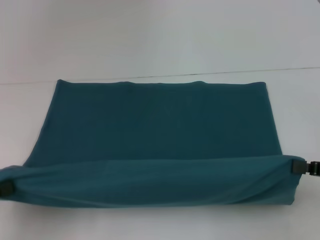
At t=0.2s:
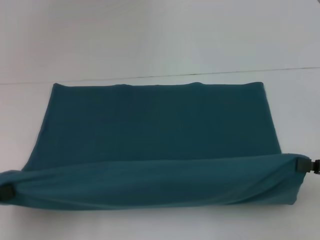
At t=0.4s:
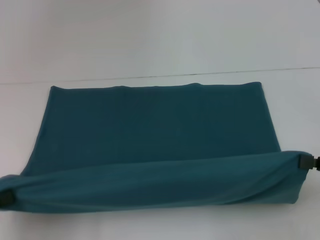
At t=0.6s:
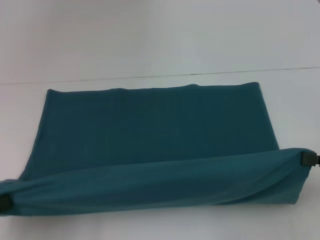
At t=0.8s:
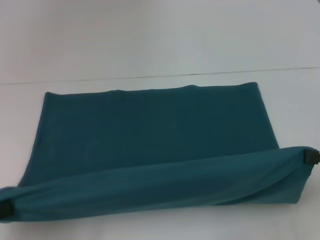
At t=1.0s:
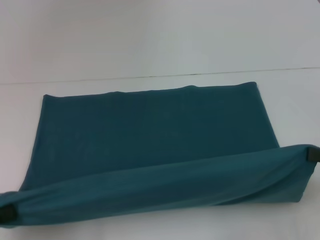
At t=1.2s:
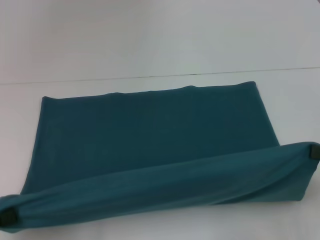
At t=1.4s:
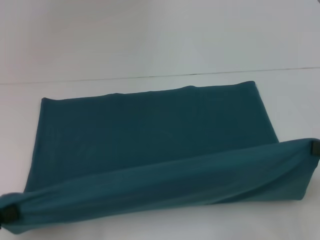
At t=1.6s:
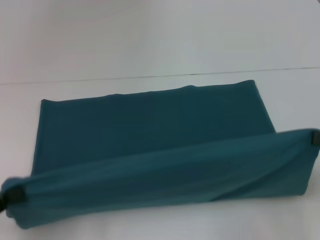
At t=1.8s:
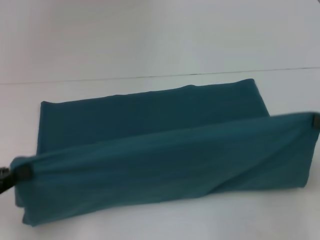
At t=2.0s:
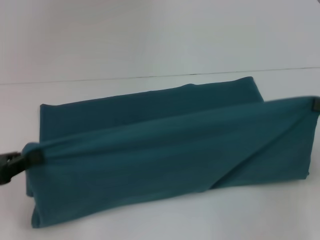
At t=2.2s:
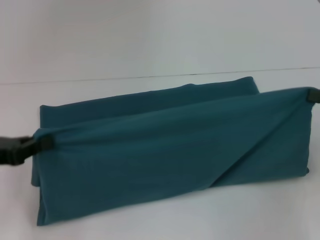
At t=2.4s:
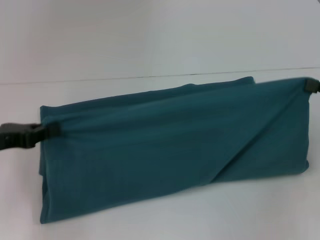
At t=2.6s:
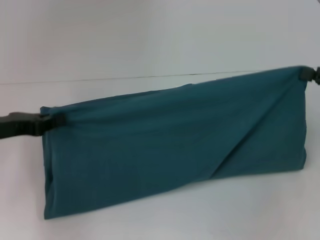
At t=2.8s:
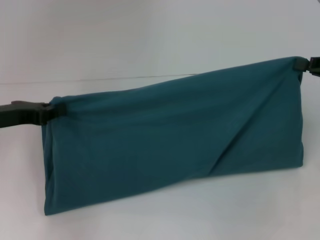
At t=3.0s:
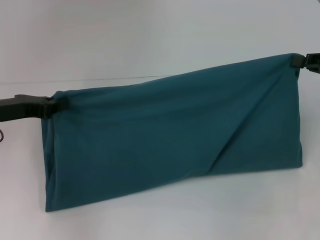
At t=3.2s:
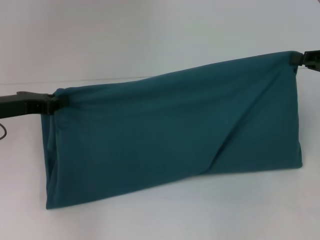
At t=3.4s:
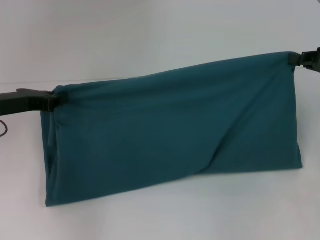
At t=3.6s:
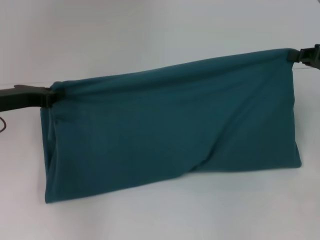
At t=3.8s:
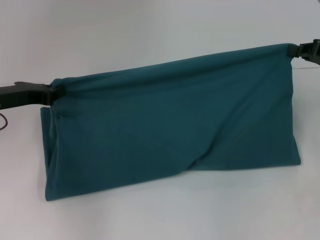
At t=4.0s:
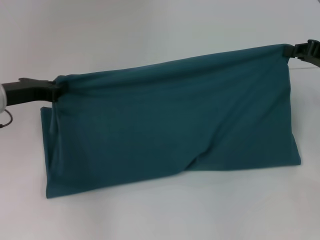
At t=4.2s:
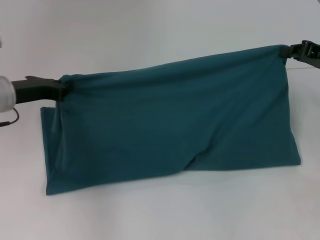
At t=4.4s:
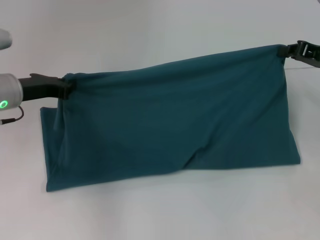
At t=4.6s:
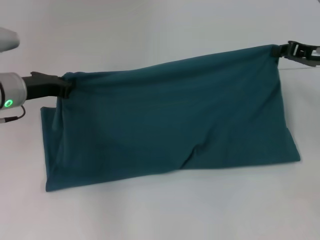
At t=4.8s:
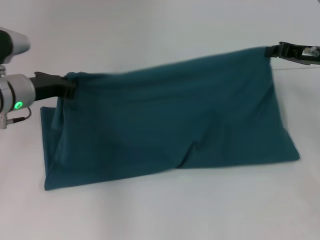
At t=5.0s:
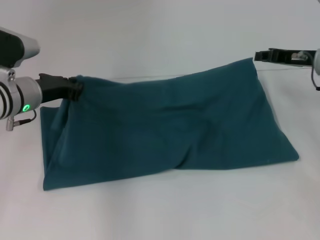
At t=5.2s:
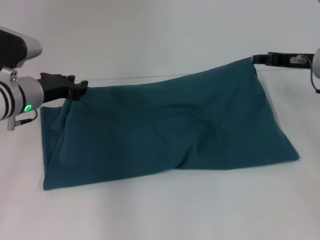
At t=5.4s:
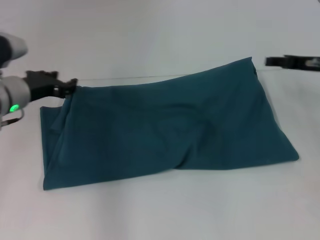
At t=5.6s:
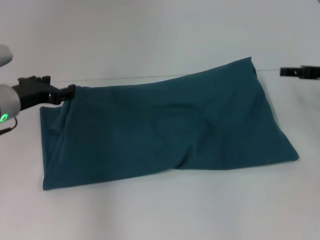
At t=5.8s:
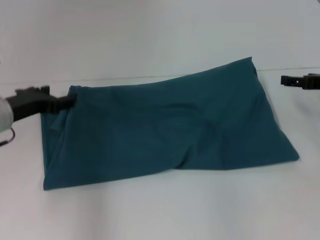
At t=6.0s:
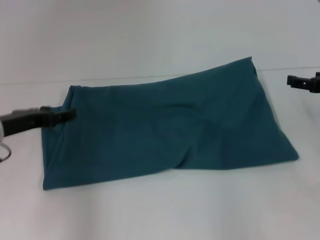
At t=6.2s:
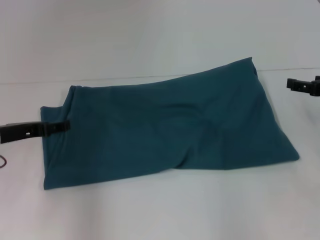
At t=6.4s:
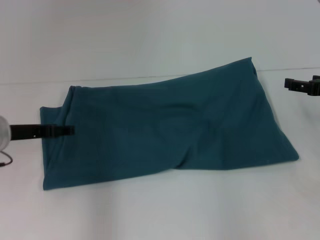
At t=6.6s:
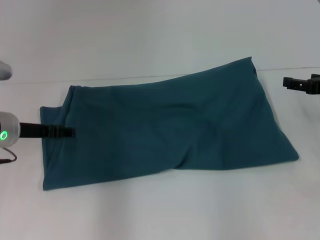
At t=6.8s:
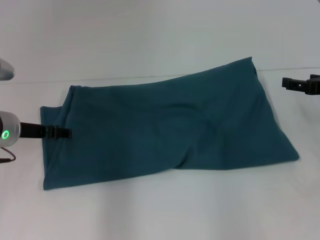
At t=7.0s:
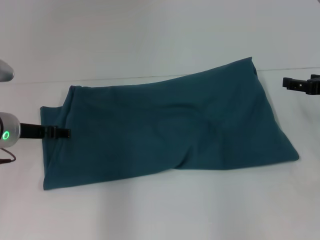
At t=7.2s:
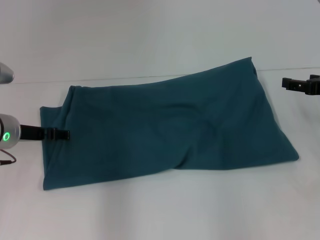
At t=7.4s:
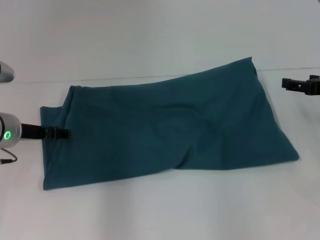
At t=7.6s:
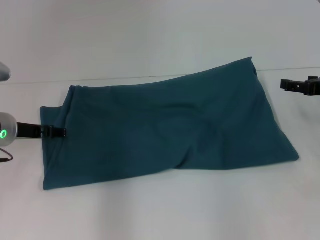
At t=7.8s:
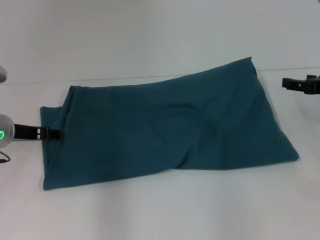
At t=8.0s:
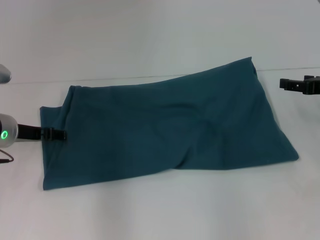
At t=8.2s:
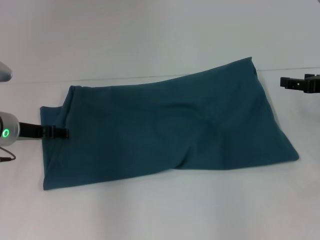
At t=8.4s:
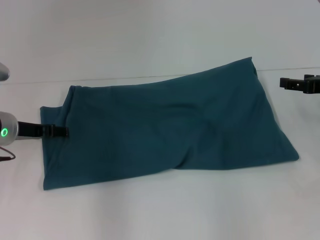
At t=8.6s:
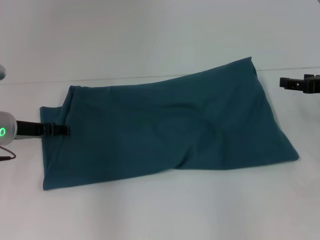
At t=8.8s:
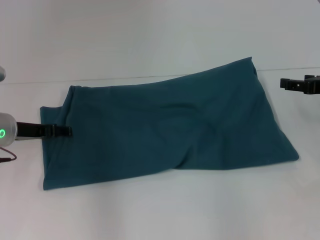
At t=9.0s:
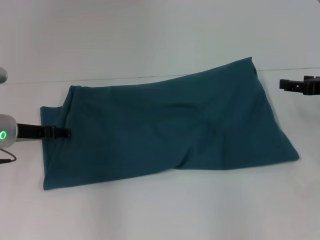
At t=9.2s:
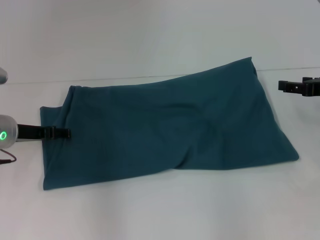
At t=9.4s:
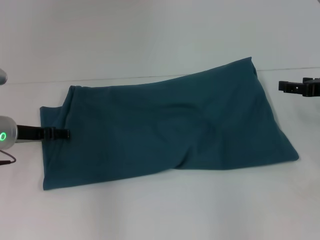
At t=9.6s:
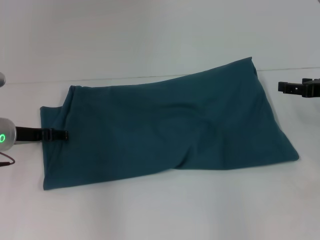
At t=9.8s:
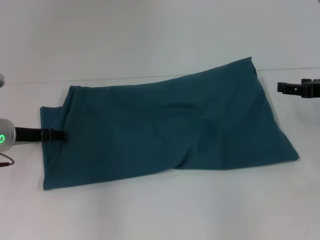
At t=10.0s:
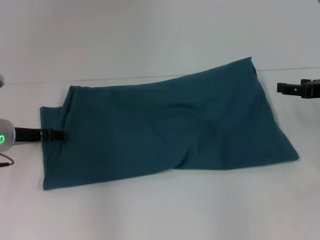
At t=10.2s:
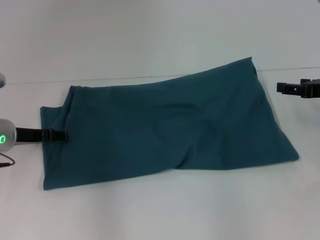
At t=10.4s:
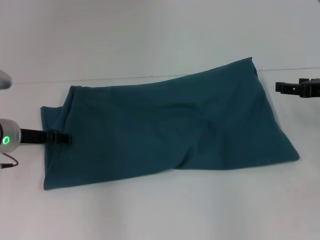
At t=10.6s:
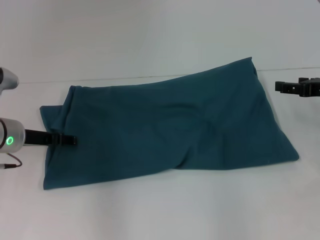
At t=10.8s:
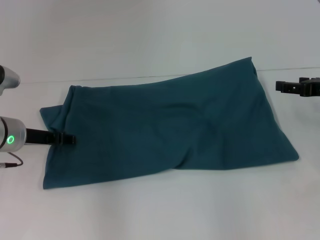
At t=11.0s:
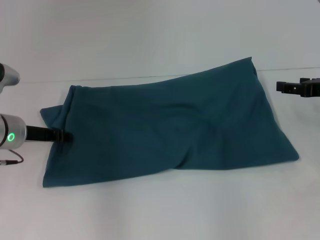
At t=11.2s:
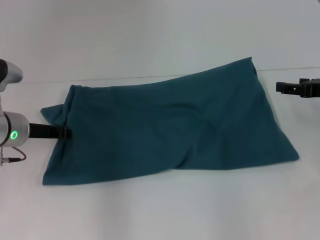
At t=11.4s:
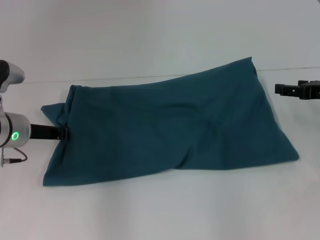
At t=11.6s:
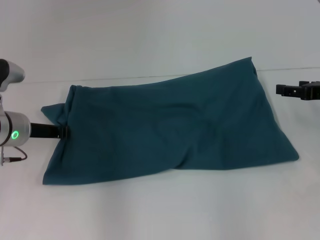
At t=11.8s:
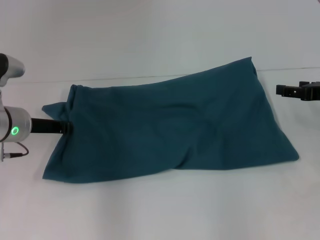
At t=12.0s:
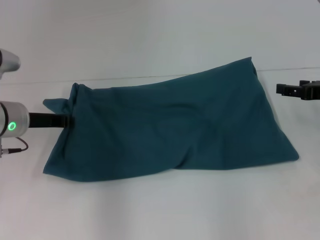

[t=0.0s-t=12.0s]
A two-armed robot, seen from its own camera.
Step, t=0.0s to t=5.4s: Fold the clothes to the left.
Step, t=0.0s to t=5.4s: Fold the clothes to the right.
t=0.0s to t=1.6s: The grippers move only a little.
t=1.6s to t=3.0s: The right gripper heads forward, covering about 10 cm, while the left gripper goes roughly 20 cm forward.
t=3.0s to t=4.4s: The right gripper goes roughly 5 cm forward. Meanwhile the left gripper ends up roughly 5 cm from where it was.
t=4.4s to t=6.0s: The right gripper ends up approximately 5 cm from where it was, and opens its fingers, while the left gripper goes roughly 5 cm backward, and opens its fingers.
t=9.0s to t=10.4s: The two grippers keep their place.
t=10.4s to t=12.0s: The left gripper closes.

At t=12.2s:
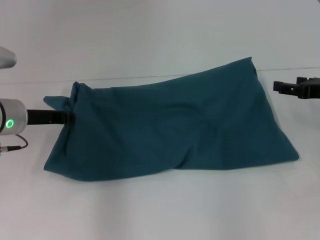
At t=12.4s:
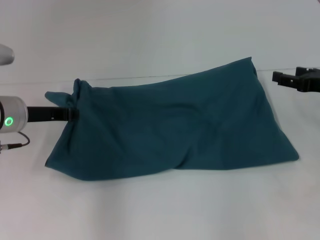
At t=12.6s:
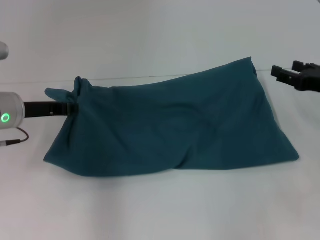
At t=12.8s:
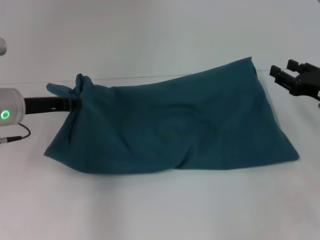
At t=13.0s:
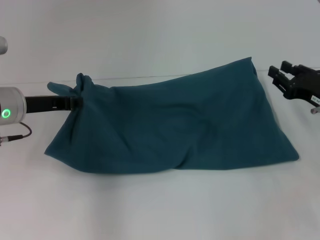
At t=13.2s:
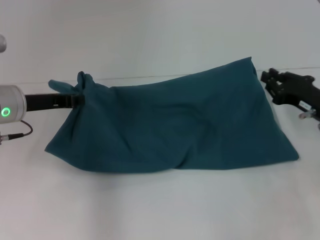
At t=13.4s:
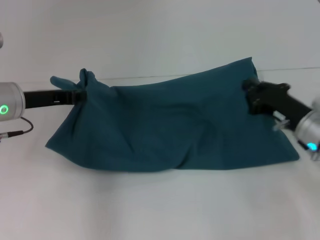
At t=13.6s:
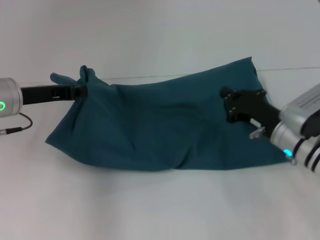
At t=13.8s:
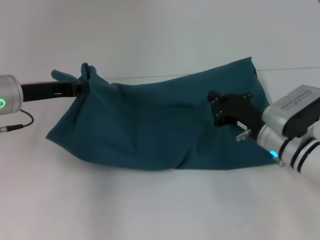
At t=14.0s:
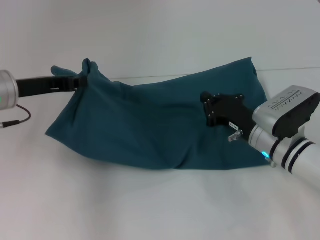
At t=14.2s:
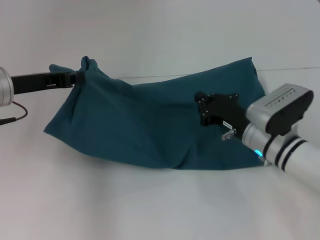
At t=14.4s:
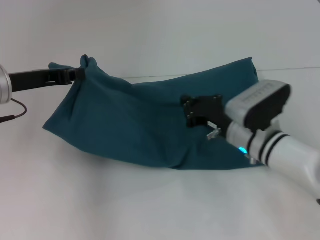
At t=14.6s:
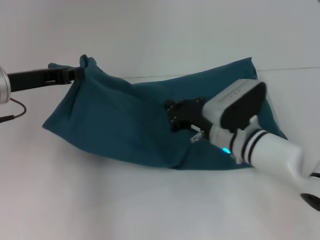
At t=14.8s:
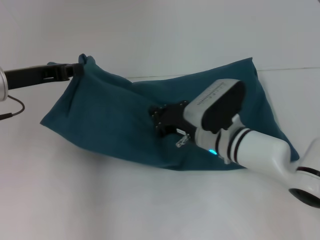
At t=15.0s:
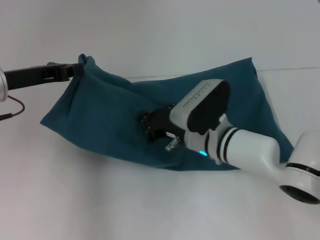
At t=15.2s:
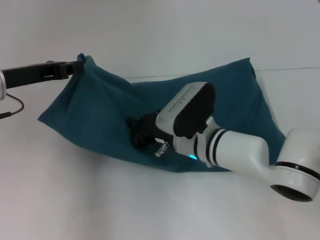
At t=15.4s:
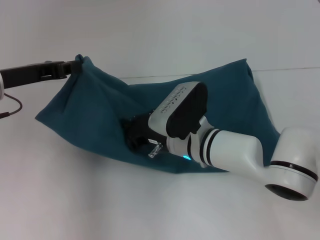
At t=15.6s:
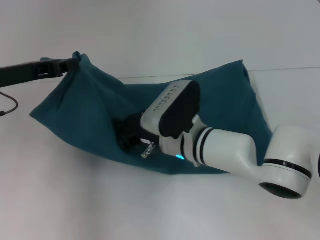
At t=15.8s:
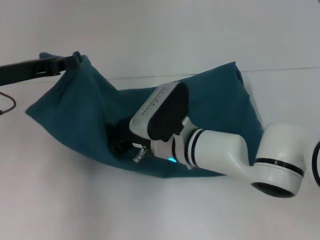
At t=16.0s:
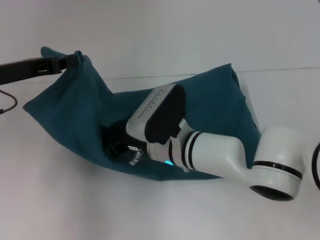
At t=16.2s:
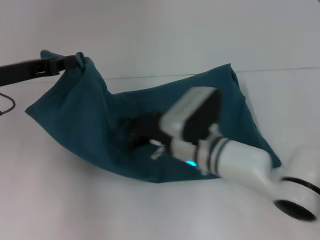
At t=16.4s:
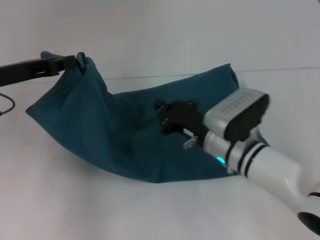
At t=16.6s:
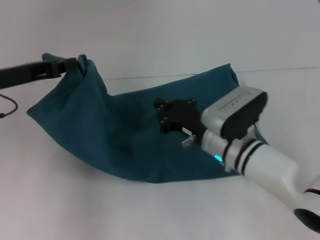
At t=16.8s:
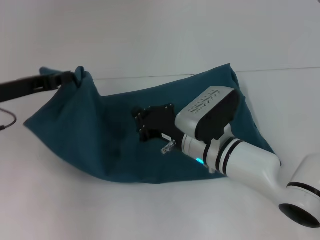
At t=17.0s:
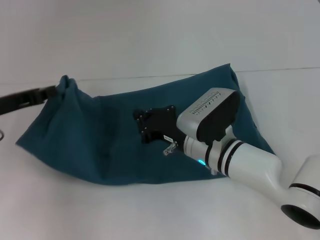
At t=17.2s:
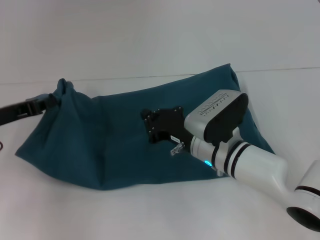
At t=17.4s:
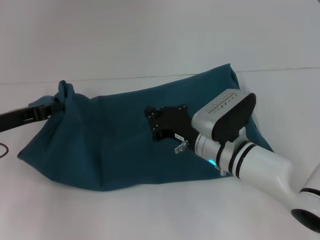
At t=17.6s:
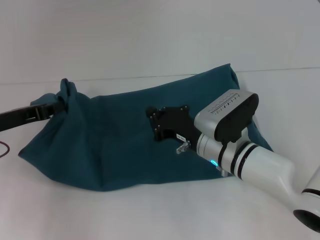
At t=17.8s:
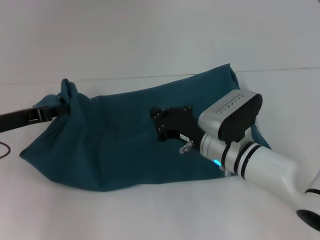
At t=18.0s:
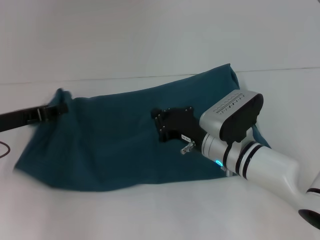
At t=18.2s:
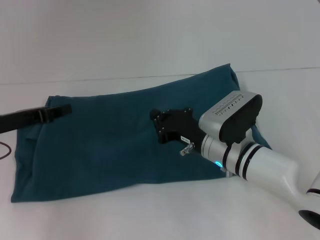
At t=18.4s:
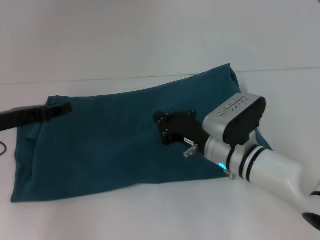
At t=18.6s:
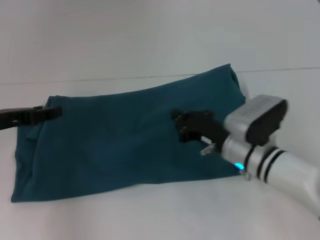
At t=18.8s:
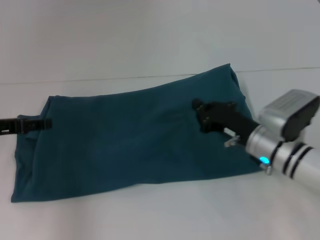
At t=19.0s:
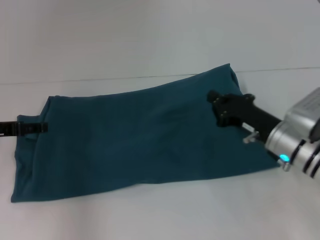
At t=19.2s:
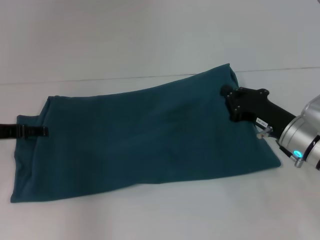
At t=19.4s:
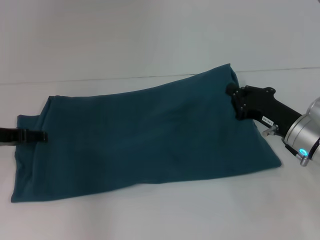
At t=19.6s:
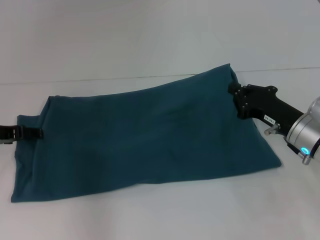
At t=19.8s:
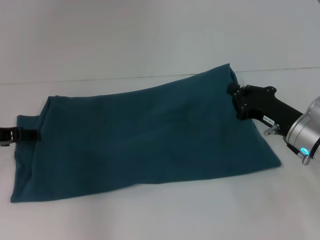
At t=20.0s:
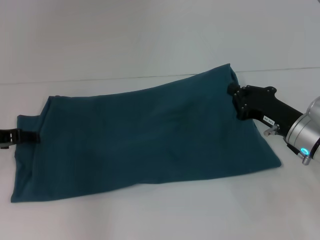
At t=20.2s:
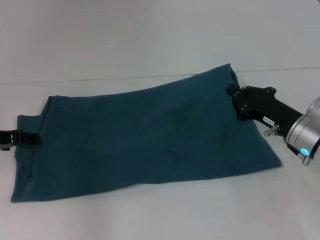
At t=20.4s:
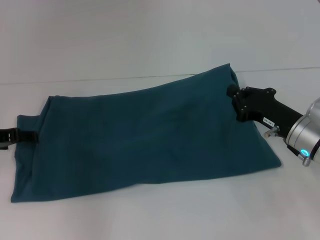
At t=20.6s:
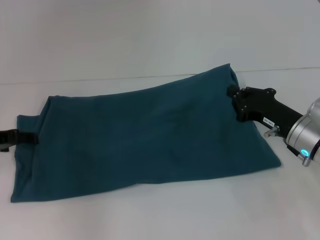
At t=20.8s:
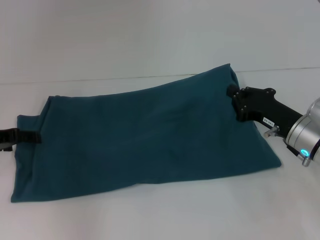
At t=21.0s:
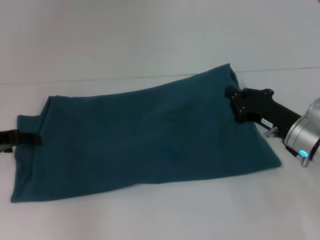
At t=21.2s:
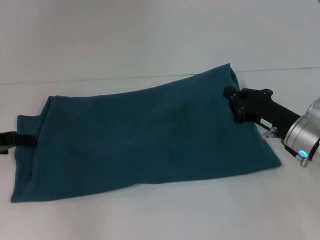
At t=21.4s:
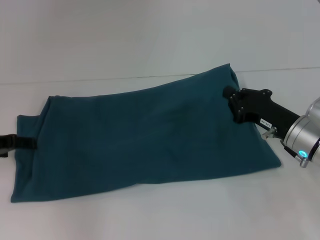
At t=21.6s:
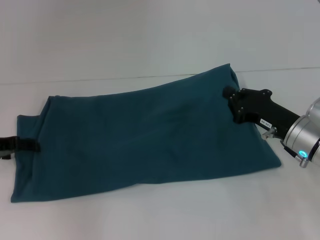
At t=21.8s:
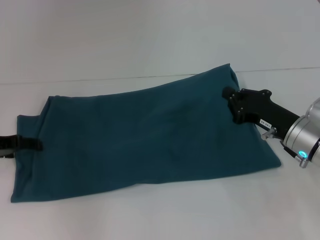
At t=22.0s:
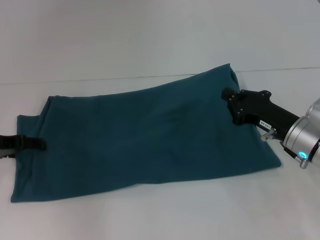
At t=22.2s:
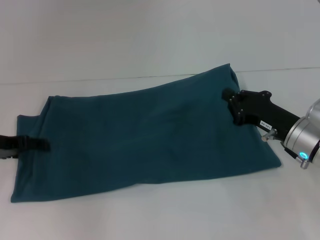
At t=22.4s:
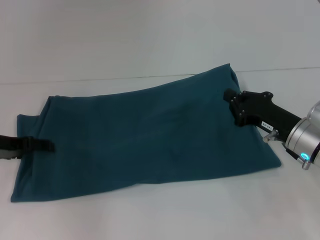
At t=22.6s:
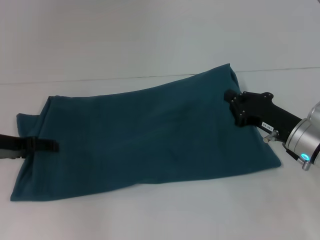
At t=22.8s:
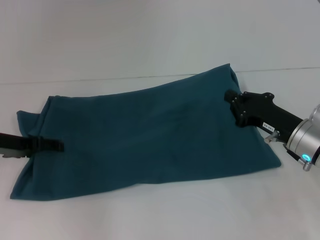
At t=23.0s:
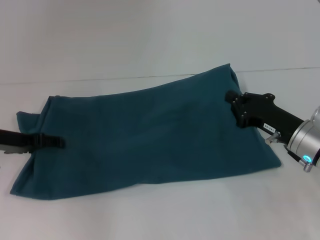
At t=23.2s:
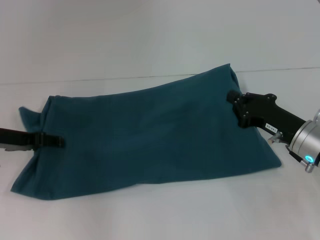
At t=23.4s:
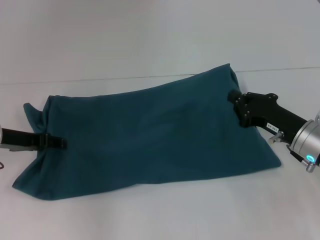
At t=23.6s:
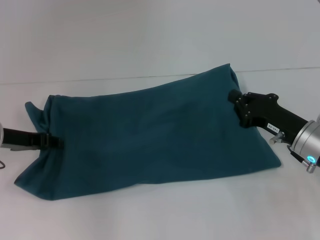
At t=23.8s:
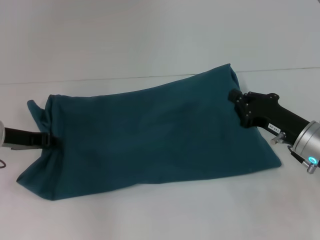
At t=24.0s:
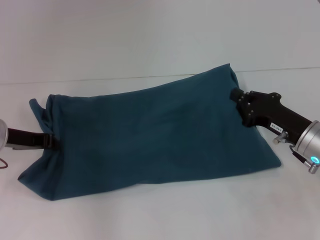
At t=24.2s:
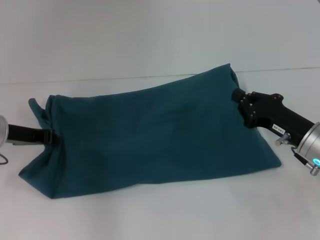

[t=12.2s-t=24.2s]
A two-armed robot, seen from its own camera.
t=12.2s to t=13.8s: The right gripper travels to the left and downward by some 15 cm, and closes up.
t=13.8s to t=15.2s: The right gripper is displaced to the left by some 15 cm.
t=16.6s to t=18.2s: The left gripper goes approximately 5 cm downward.
t=18.2s to t=19.8s: The left gripper opens. The right gripper is displaced to the right by roughly 15 cm.
t=19.8s to t=22.6s: The grippers make only small movements.
t=22.6s to t=24.2s: The left gripper closes.
